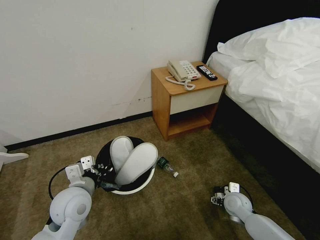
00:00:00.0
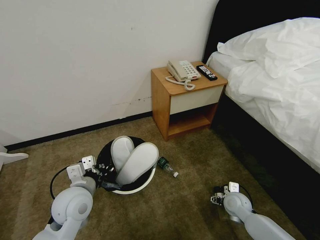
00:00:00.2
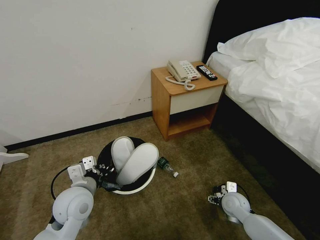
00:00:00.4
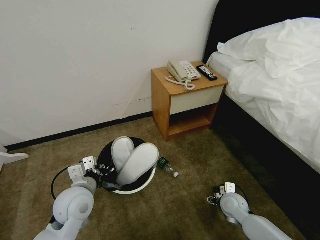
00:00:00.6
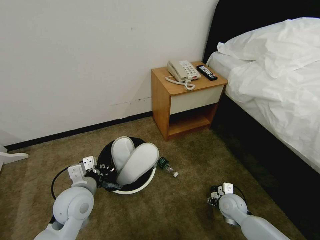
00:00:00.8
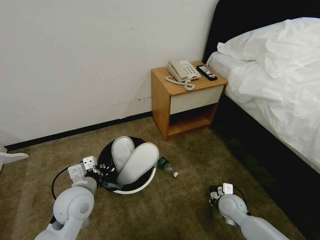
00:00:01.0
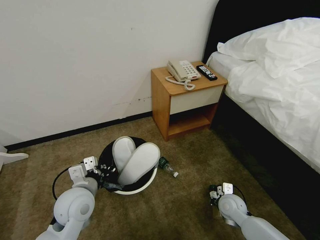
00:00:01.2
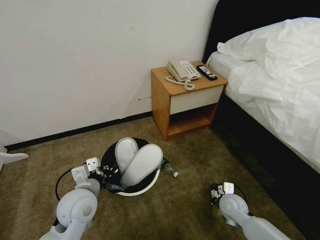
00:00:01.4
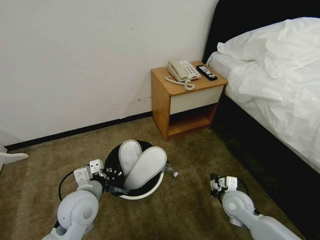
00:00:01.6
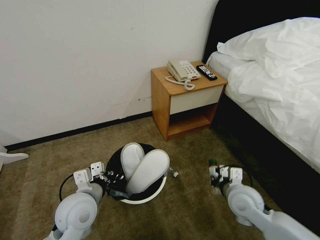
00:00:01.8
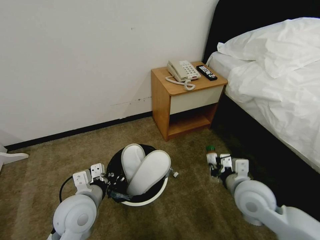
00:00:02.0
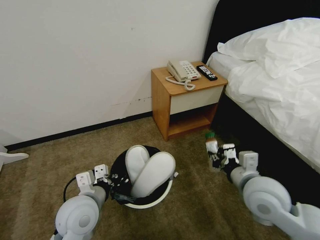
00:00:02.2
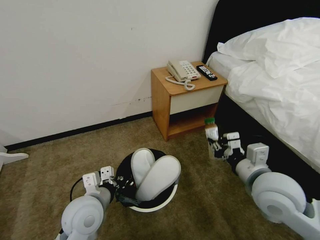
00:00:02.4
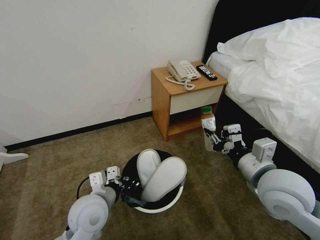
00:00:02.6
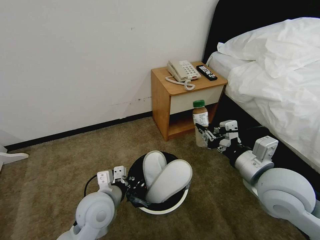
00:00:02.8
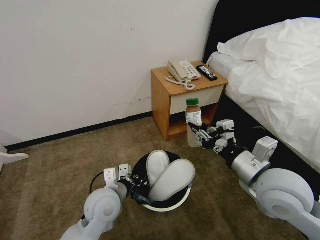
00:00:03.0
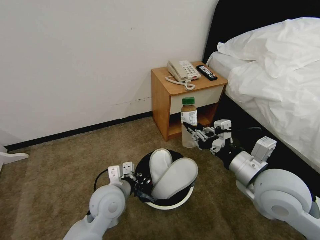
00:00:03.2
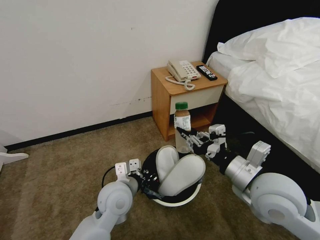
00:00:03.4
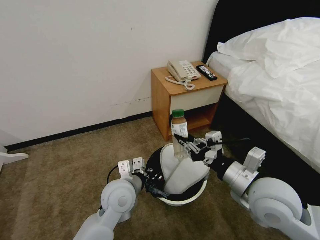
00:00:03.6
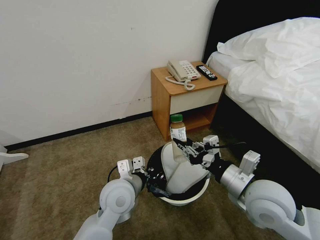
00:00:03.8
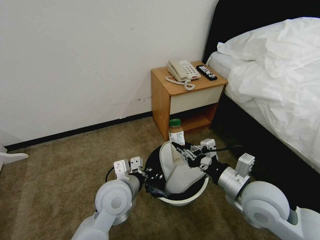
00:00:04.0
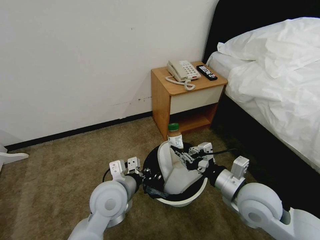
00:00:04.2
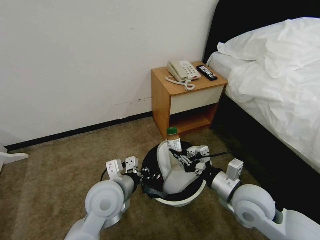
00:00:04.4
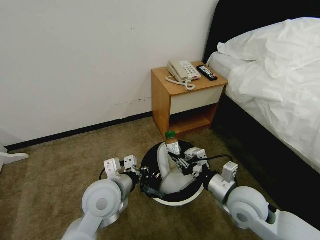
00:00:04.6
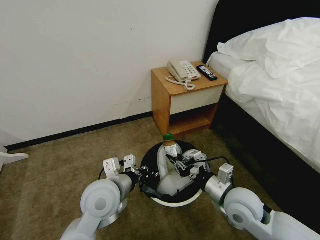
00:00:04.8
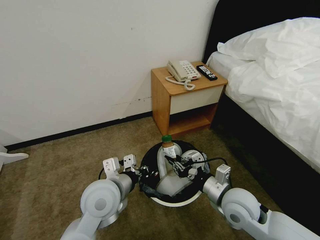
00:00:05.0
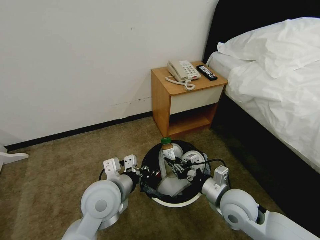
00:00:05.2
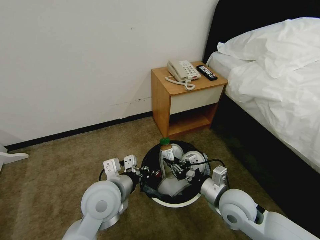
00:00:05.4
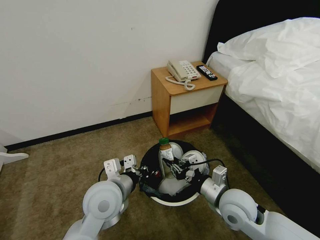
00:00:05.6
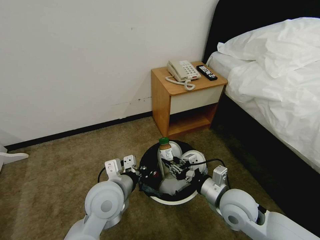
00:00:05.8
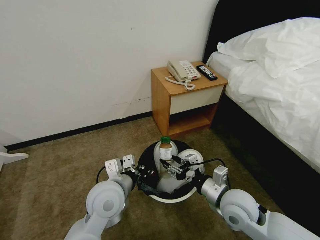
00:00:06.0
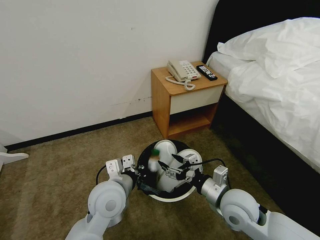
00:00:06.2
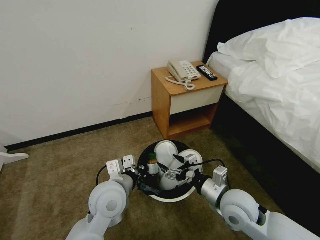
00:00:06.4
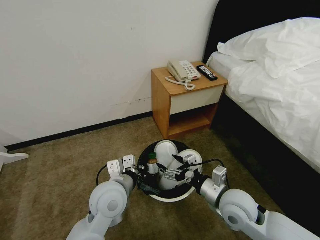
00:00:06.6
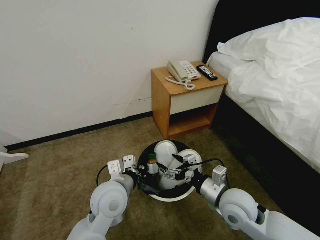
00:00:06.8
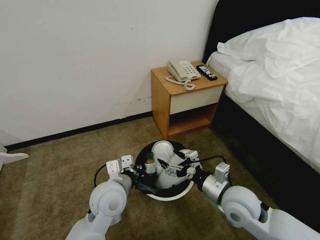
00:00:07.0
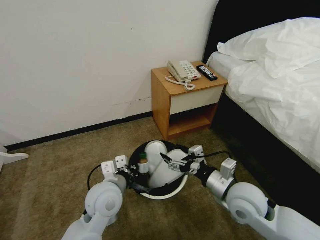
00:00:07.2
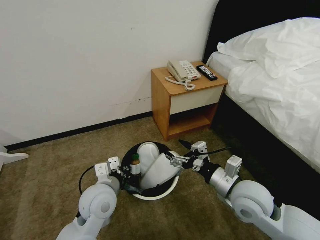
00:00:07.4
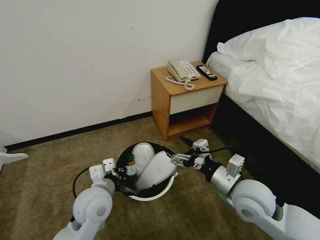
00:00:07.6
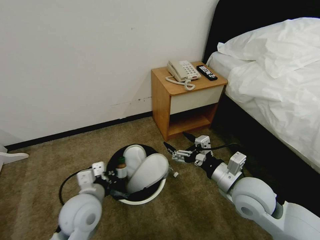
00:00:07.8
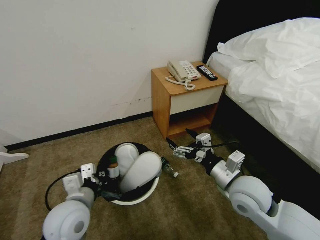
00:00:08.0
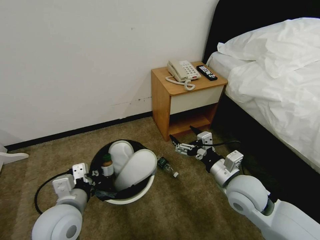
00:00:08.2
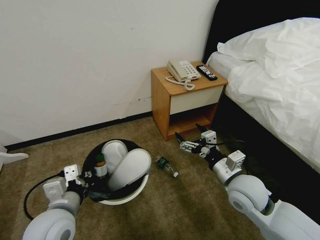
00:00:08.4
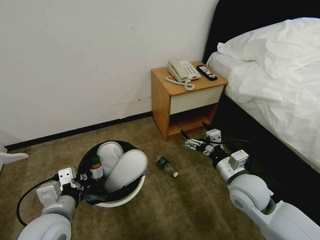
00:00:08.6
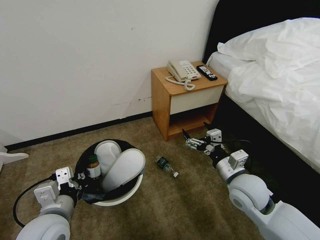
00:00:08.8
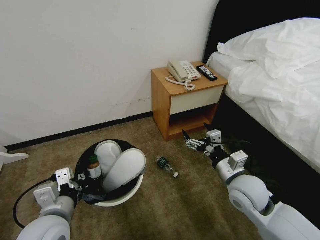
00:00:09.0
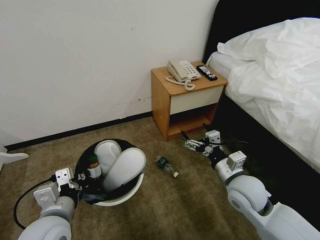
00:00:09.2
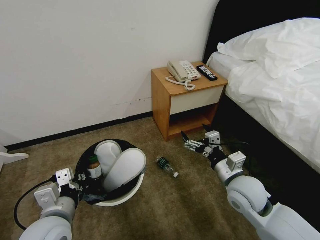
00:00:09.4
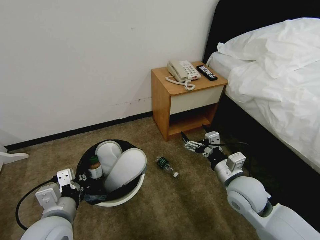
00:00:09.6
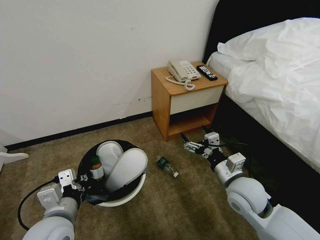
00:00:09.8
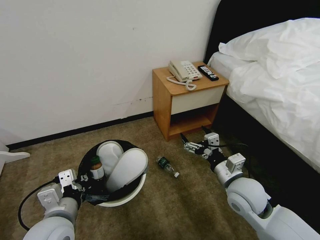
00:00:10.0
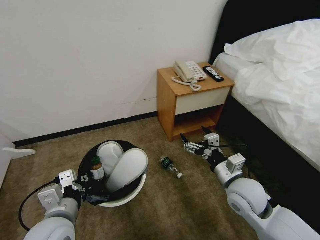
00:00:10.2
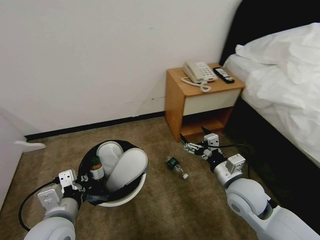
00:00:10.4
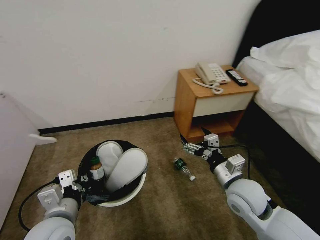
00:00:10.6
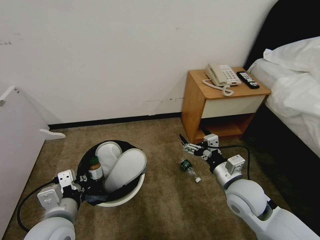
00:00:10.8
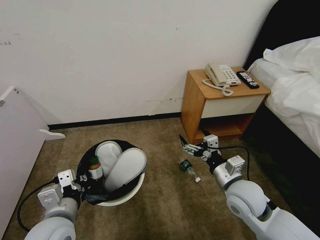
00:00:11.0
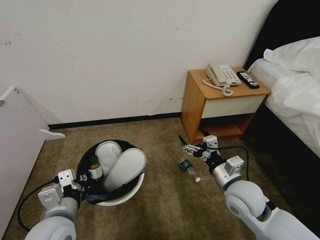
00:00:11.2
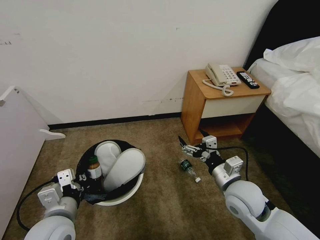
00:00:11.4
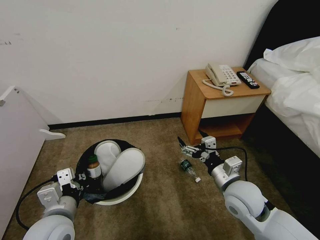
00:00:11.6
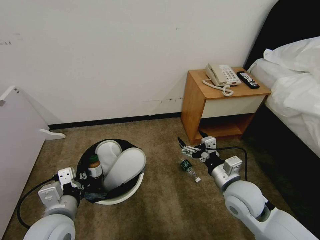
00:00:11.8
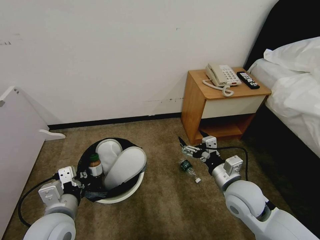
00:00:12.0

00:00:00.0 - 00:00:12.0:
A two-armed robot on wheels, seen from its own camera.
Task of the whole recording: Pick up the trash bin, then pick up the garbage from the floor and place it into the trash bin.
00:00:00.0 - 00:00:01.6: The right gripper goes about 5 cm upward, and closes its fingers.
00:00:01.6 - 00:00:03.0: The left gripper shifts approximately 5 cm to the right, while the right gripper heads upward, covering roughly 25 cm.
00:00:03.0 - 00:00:04.4: The right gripper travels downward by approximately 10 cm.
00:00:04.4 - 00:00:06.0: The right gripper opens its fingers.
00:00:06.0 - 00:00:07.6: The right gripper heads upward, covering roughly 5 cm, and opens up.
00:00:07.6 - 00:00:09.0: The left gripper shifts roughly 10 cm to the left and backward.

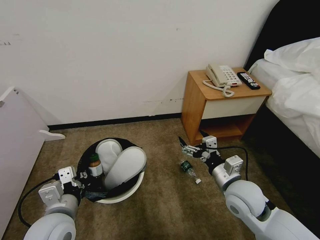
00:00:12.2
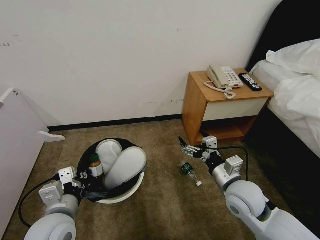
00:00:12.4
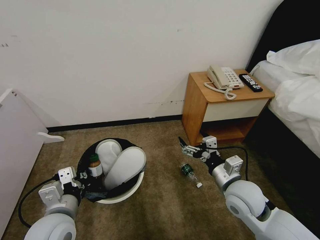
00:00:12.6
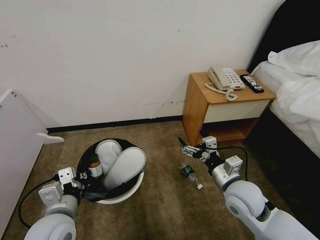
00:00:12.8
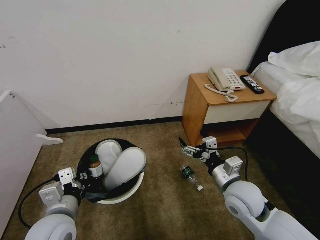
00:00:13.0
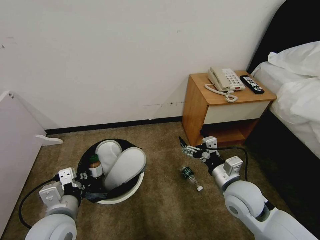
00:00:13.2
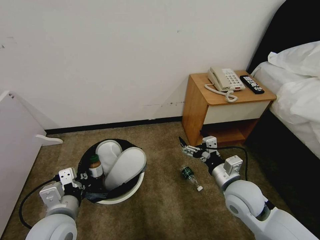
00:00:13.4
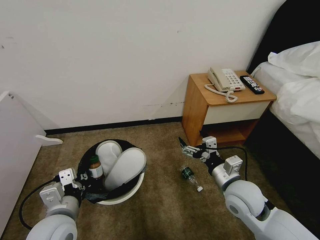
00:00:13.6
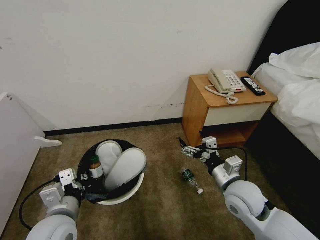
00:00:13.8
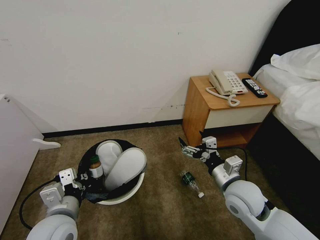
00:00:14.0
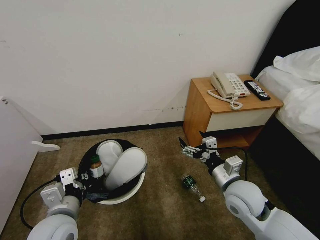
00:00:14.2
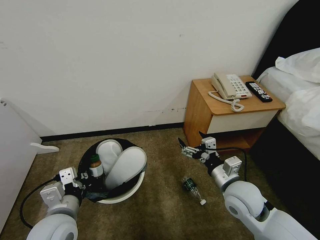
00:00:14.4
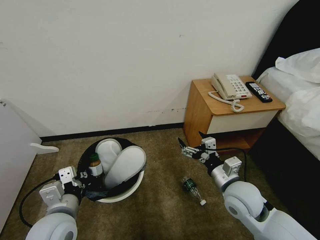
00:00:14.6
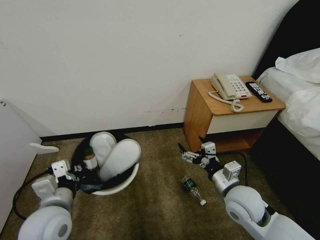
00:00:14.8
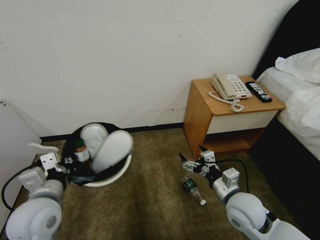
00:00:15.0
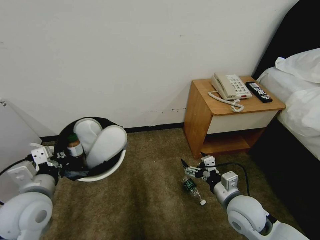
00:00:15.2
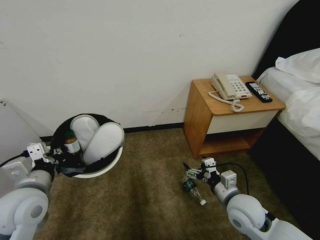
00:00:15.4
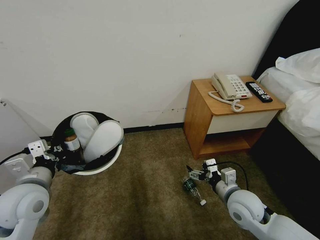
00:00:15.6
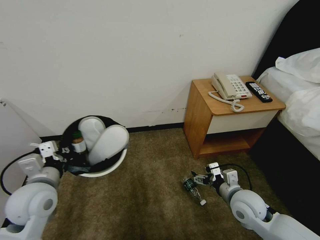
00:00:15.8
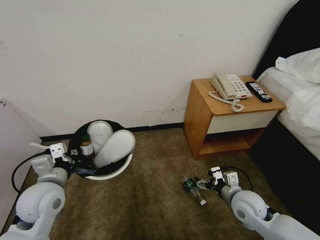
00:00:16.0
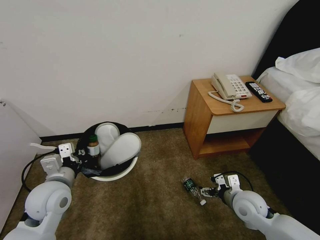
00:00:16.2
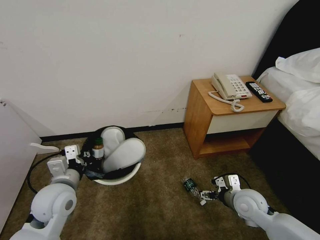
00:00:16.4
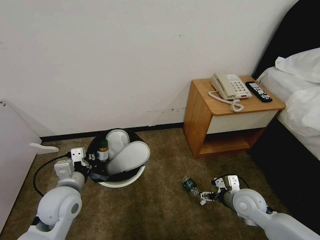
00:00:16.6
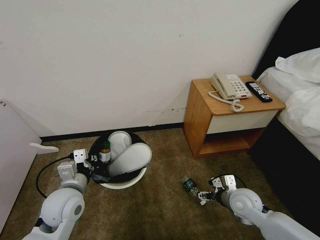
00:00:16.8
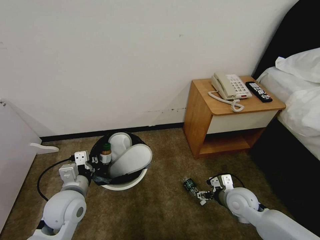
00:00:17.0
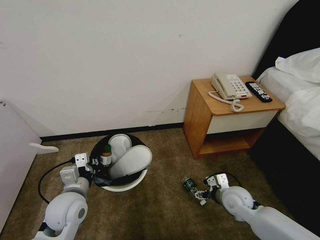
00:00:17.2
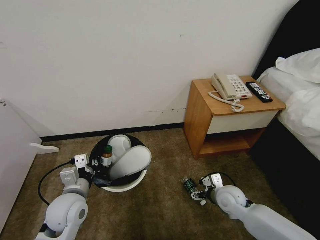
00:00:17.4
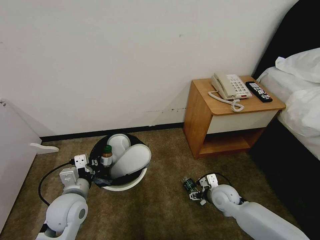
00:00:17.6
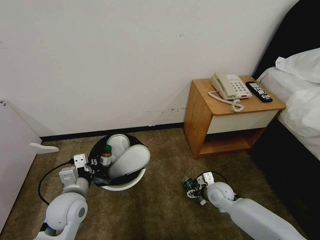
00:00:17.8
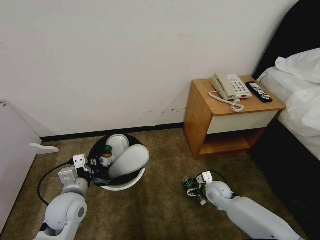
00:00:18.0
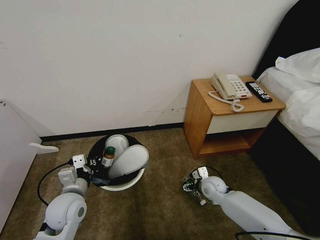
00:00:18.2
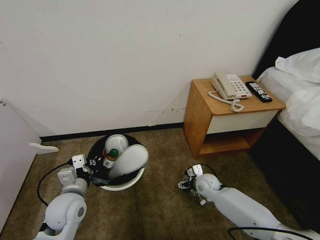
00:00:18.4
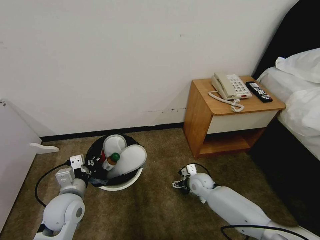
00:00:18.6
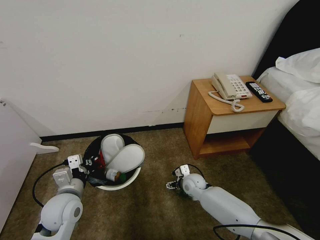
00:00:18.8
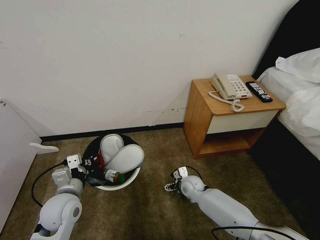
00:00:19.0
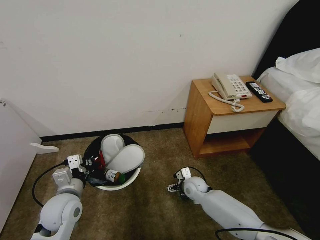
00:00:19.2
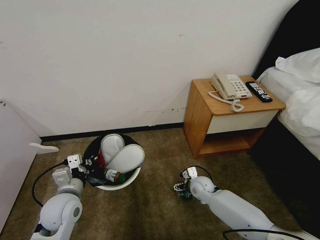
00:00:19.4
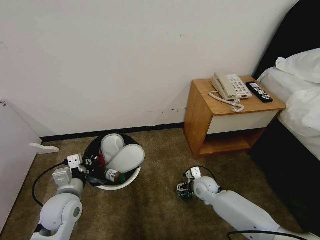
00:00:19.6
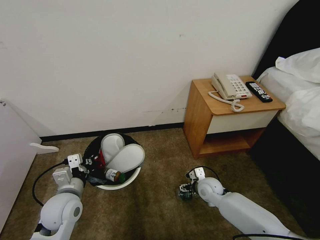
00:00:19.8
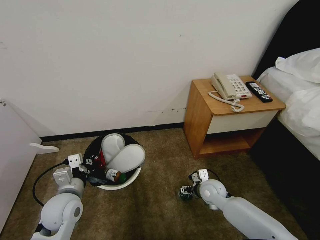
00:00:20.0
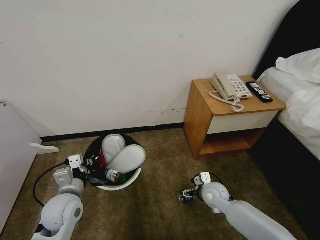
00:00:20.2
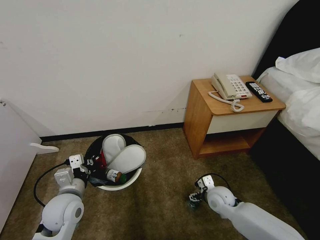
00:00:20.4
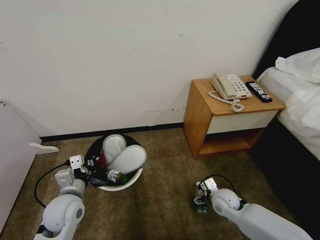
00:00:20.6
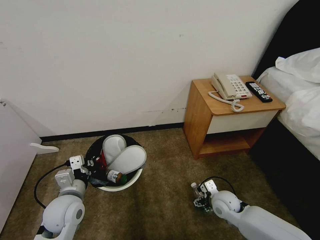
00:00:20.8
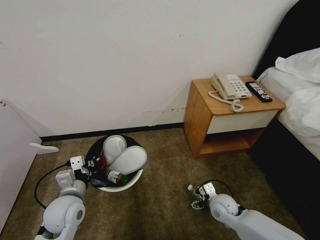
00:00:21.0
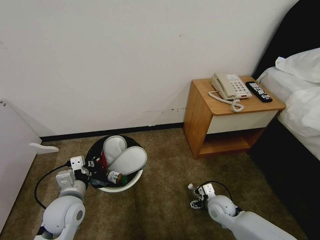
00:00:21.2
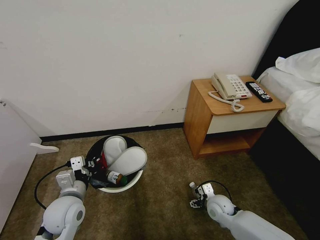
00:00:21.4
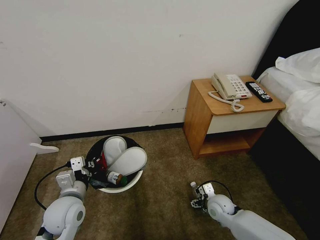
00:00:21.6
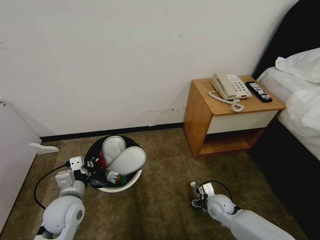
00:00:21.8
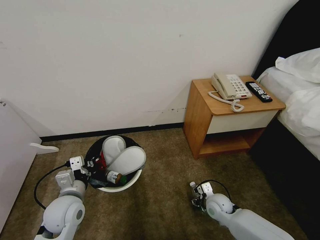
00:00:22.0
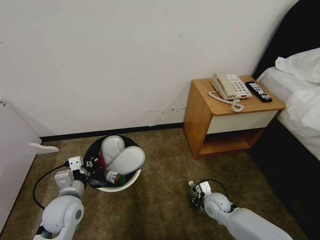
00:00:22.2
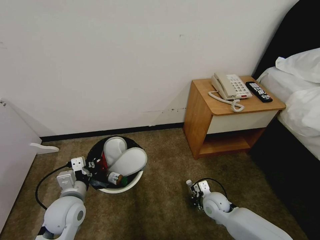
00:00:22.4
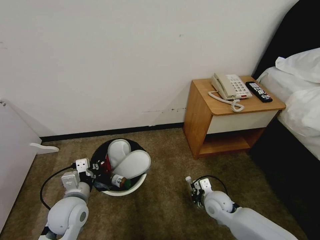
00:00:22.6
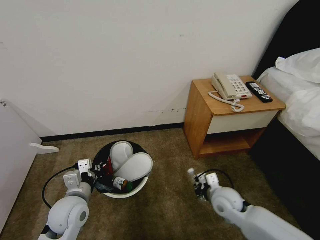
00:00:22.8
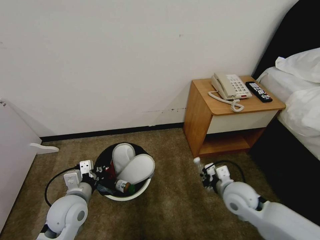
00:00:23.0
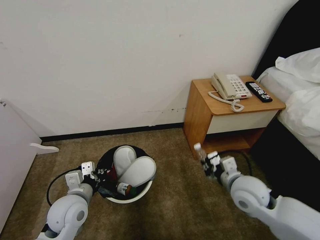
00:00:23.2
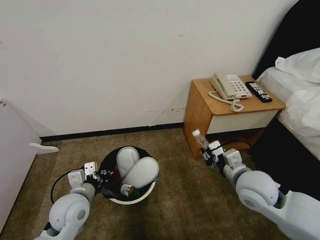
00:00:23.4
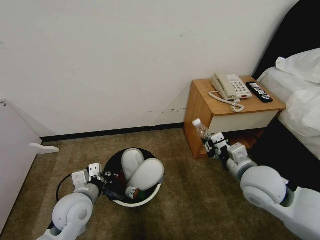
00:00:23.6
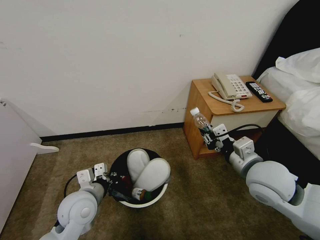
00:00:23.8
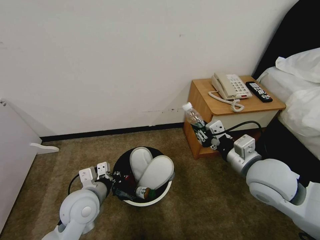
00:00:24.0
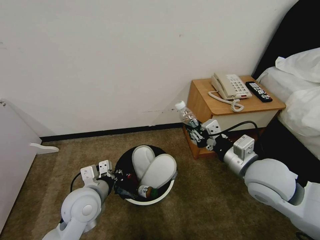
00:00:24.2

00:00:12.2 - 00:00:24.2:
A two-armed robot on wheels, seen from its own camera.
Task of the whole recording: Pick up the trash bin, then pick up the garbage from the floor and place it into the trash bin.
00:00:12.2 - 00:00:13.8: Neither gripper changes place.
00:00:13.8 - 00:00:15.2: The right gripper changes place by some 5 cm; the left gripper is displaced to the left by approximately 5 cm.
00:00:15.2 - 00:00:16.6: The right gripper goes roughly 5 cm to the right and downward, while the left gripper moves downward, roughly 5 cm.
00:00:16.6 - 00:00:18.2: The right gripper heads downward, forward and to the left, covering approximately 15 cm.
00:00:18.2 - 00:00:19.8: The right gripper reaches approximately 10 cm to the left, then returns.
00:00:19.8 - 00:00:21.2: The right gripper shifts some 5 cm backward.
00:00:21.2 - 00:00:22.6: The right gripper closes up.
00:00:22.6 - 00:00:24.2: The right gripper is displaced upward by some 25 cm. Meanwhile the left gripper heads to the right, covering about 5 cm.
